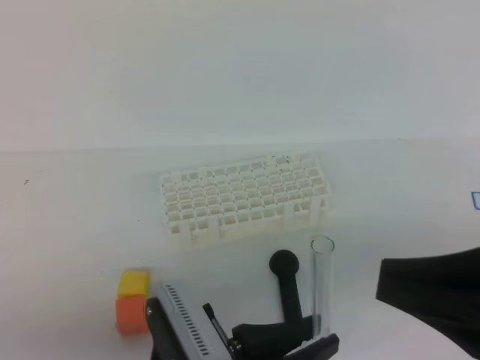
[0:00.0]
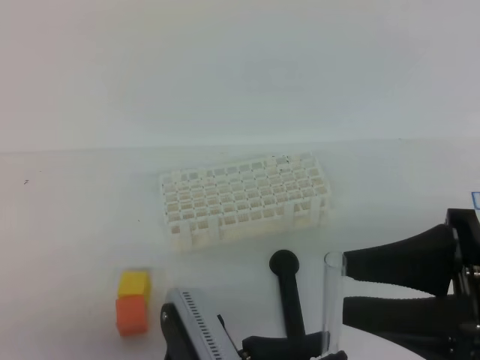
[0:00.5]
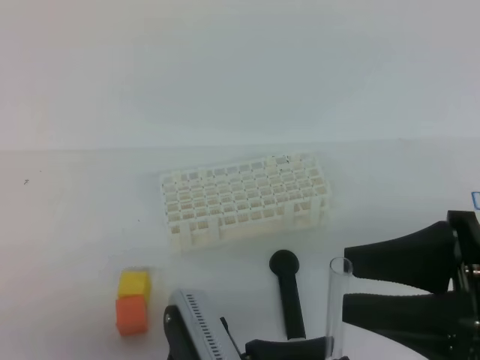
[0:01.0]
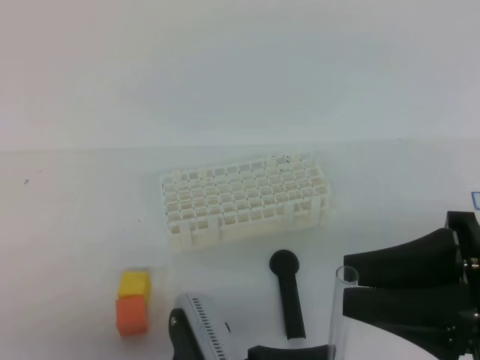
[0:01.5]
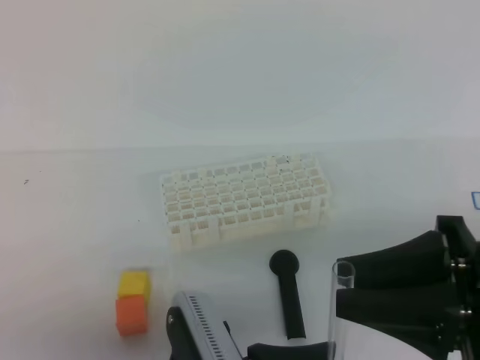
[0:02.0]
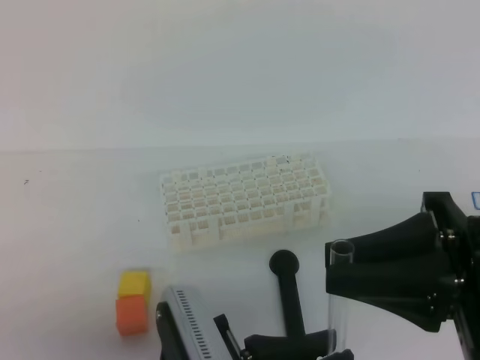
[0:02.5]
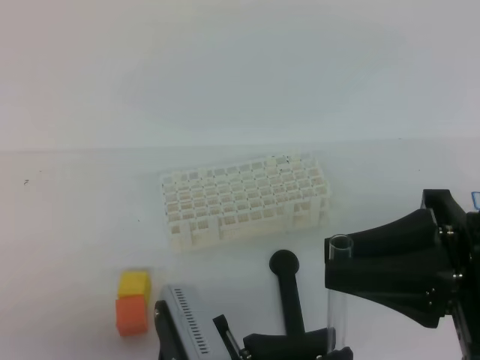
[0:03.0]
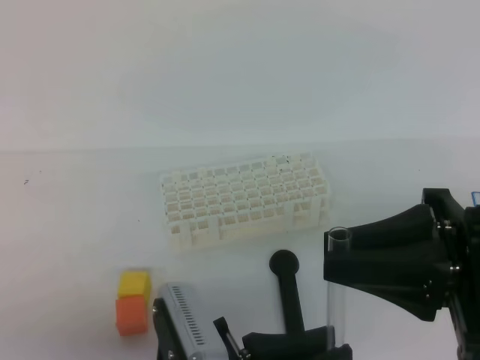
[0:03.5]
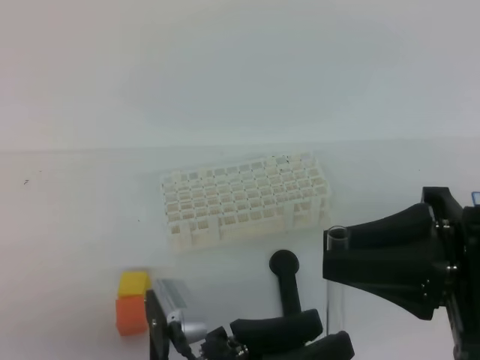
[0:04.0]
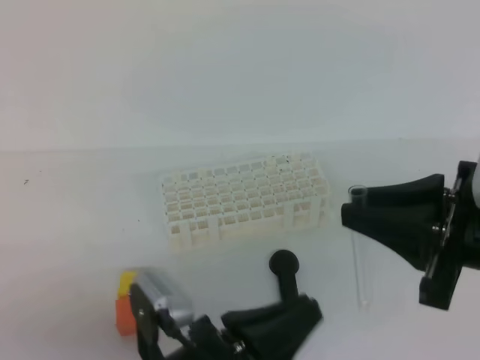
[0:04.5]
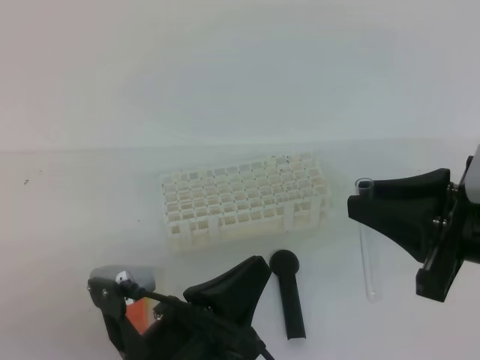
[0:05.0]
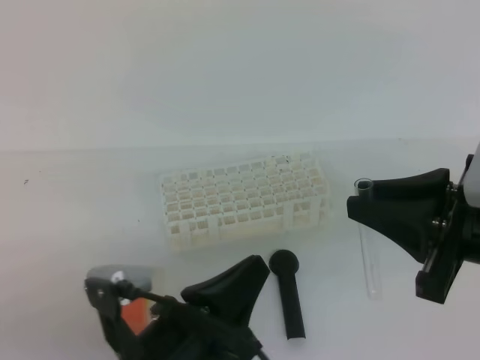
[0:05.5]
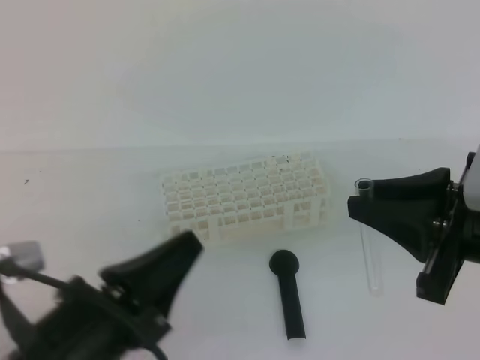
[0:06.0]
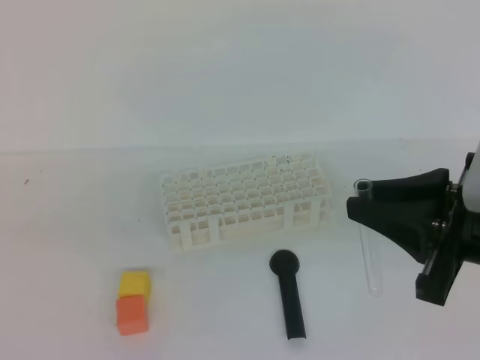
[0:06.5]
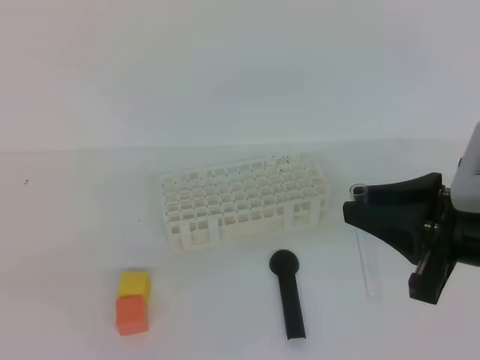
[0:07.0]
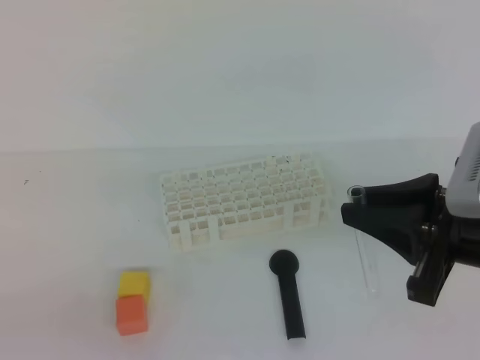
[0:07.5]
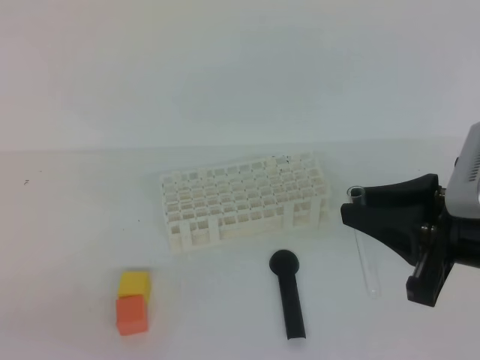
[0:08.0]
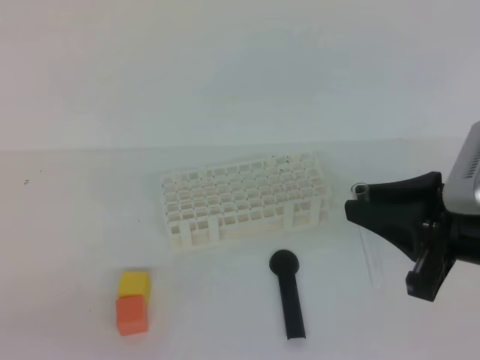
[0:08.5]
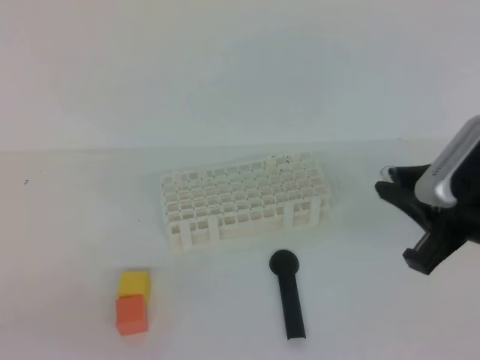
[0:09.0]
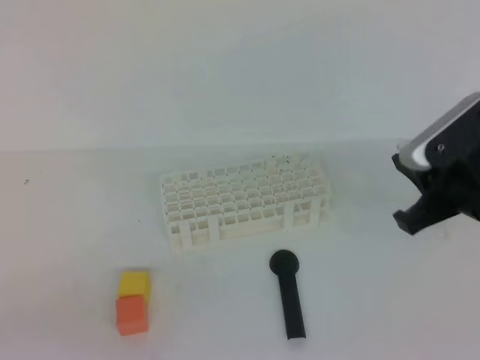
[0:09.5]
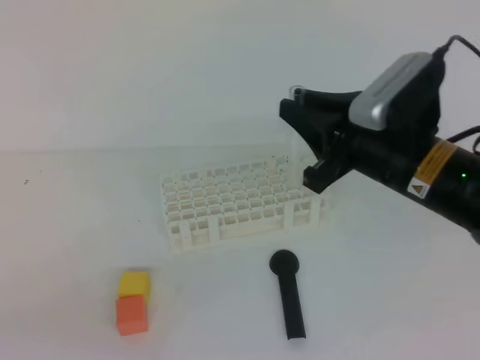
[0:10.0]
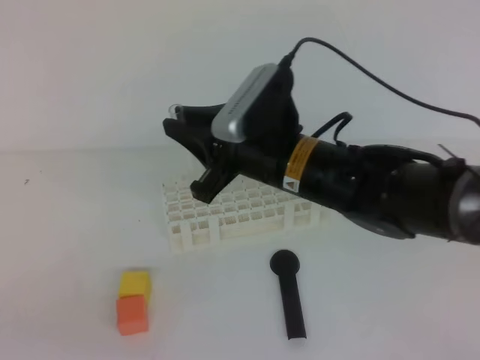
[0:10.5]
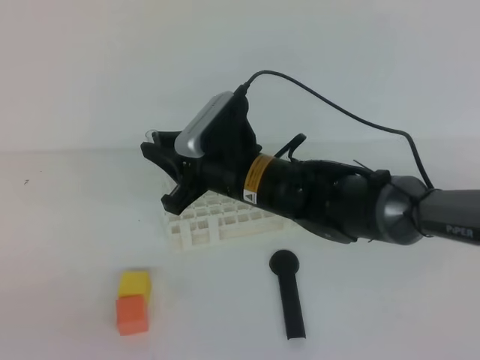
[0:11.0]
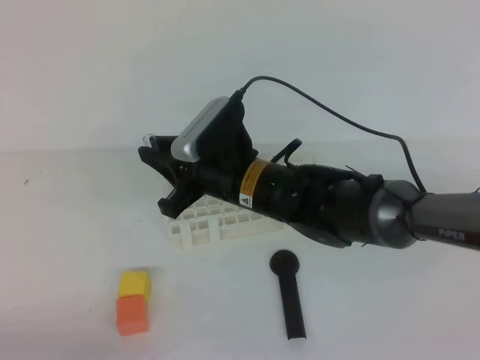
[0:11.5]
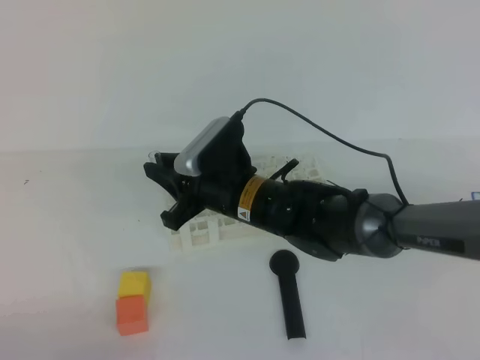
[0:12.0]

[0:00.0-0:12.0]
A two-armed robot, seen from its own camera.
0:00.0 to 0:02.0: The right gripper opens its fingers.
0:02.0 to 0:04.0: The left gripper opens up, while the right gripper closes up.
0:04.0 to 0:06.0: The left gripper travels to the left by about 5 cm, and closes its fingers.
0:06.0 to 0:08.0: The left gripper heads to the left and backward, covering some 15 cm.
0:08.0 to 0:10.0: The right gripper moves forward and to the left, about 10 cm.
0:10.0 to 0:12.0: The left gripper heads downward, covering approximately 10 cm. The right gripper moves to the left and downward, approximately 20 cm.

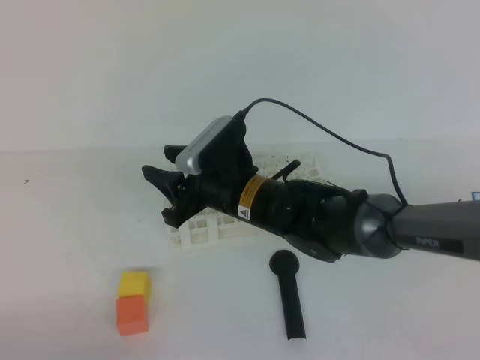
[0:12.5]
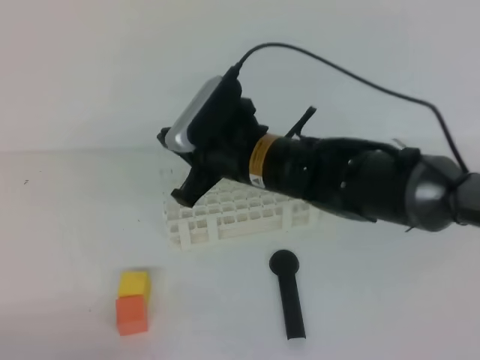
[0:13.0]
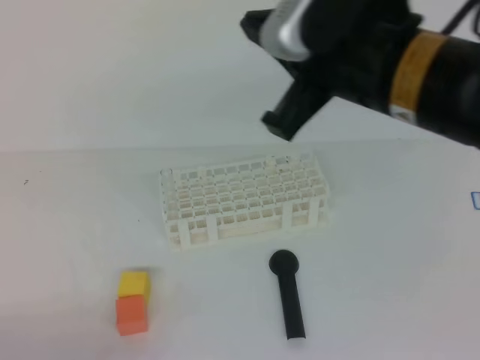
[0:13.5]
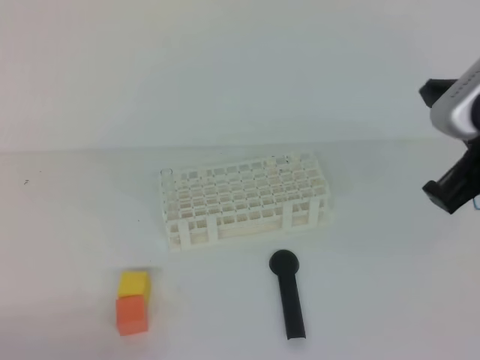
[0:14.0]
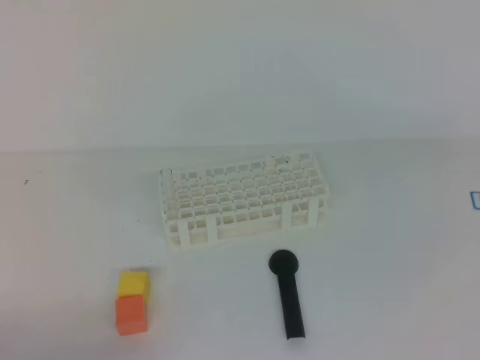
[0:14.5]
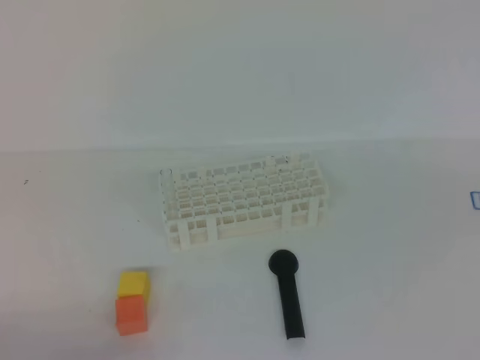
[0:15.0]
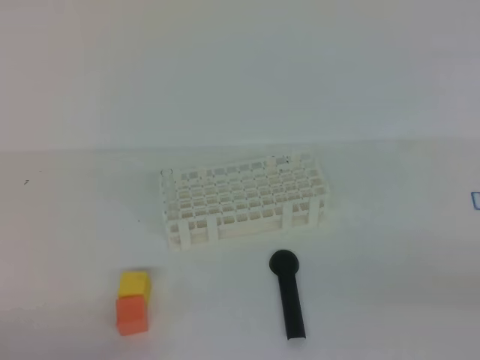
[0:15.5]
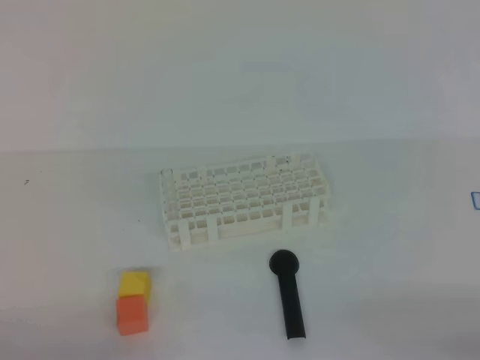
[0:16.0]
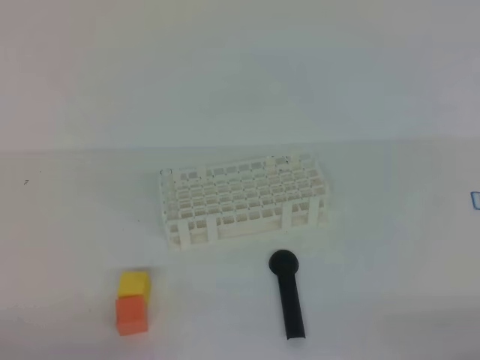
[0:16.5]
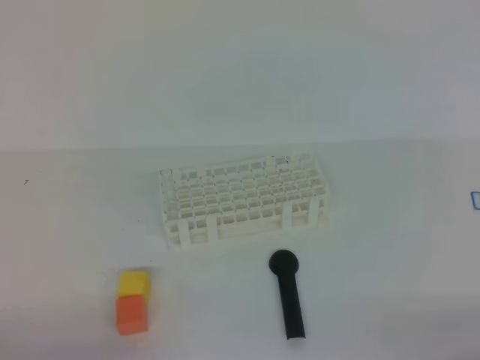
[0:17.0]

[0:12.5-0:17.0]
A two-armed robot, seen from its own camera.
0:12.5 to 0:14.5: The right gripper heads to the right, upward and backward, covering roughly 40 cm, and closes its fingers.
0:14.5 to 0:17.0: The right gripper travels downward and backward by roughly 25 cm.
